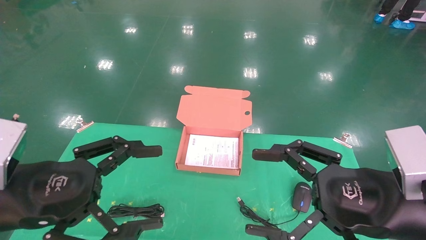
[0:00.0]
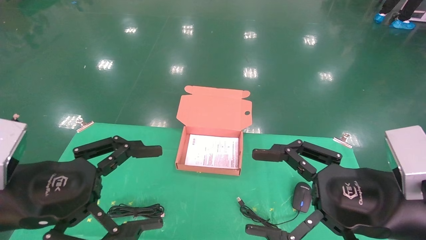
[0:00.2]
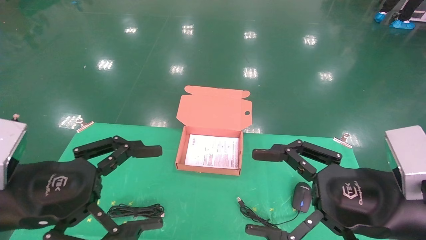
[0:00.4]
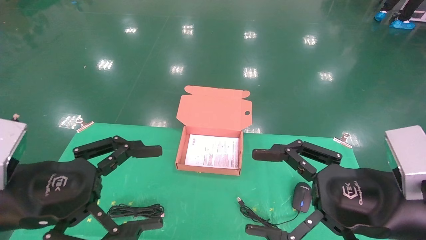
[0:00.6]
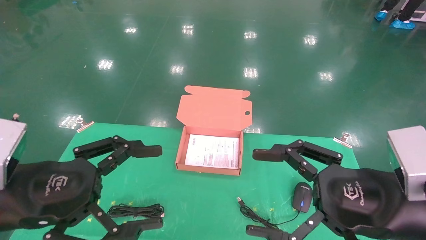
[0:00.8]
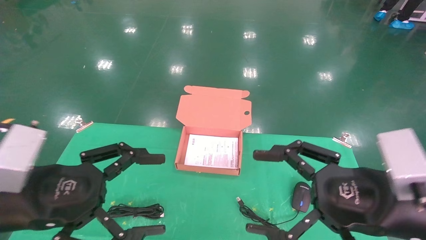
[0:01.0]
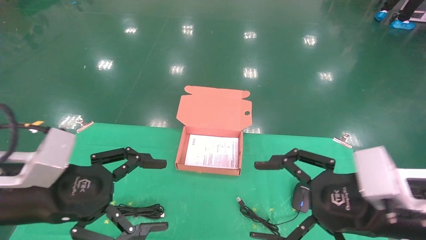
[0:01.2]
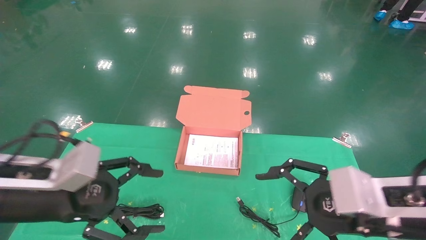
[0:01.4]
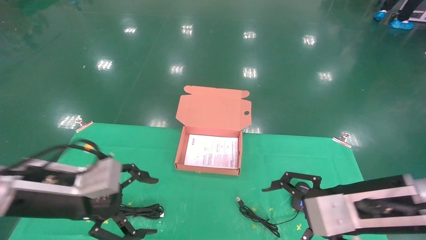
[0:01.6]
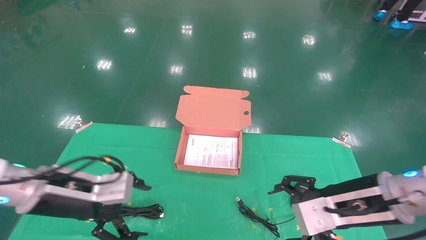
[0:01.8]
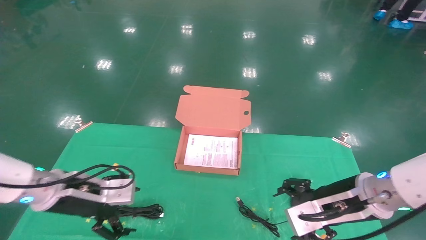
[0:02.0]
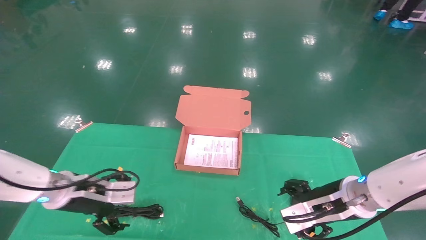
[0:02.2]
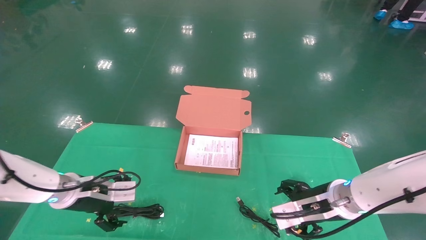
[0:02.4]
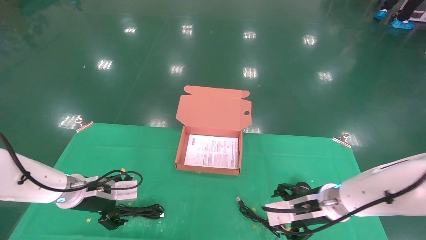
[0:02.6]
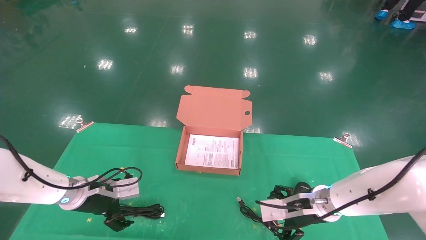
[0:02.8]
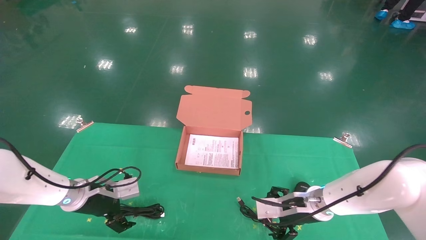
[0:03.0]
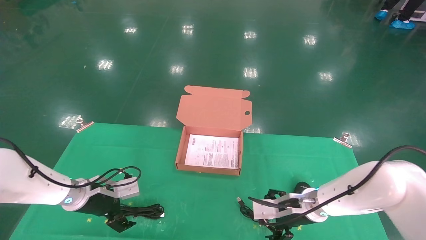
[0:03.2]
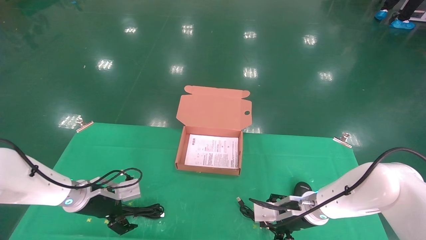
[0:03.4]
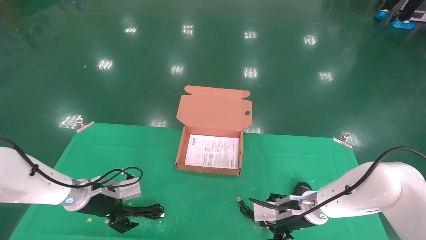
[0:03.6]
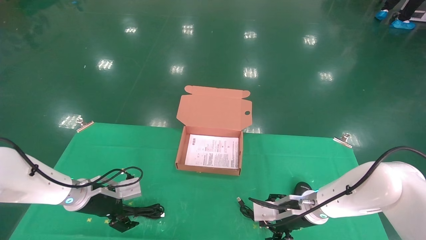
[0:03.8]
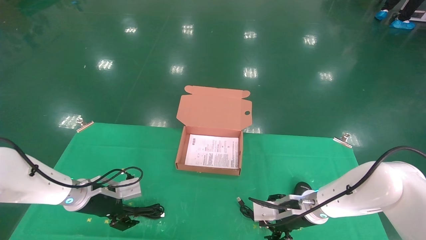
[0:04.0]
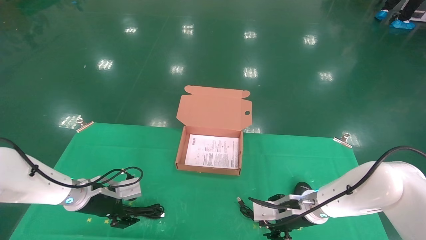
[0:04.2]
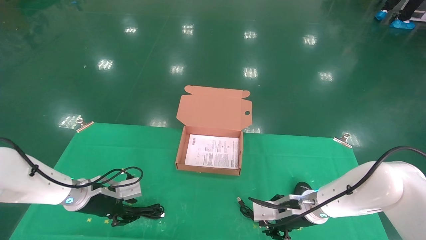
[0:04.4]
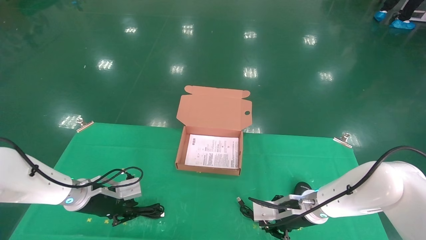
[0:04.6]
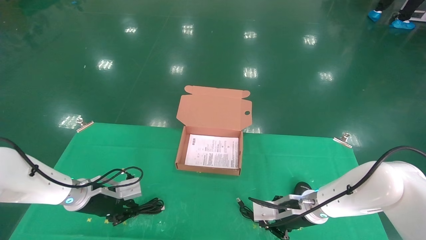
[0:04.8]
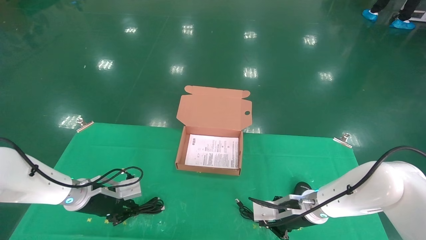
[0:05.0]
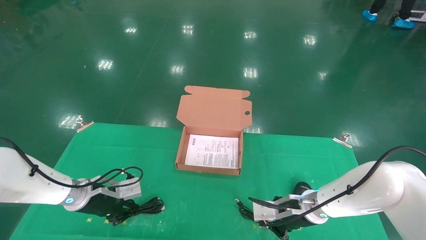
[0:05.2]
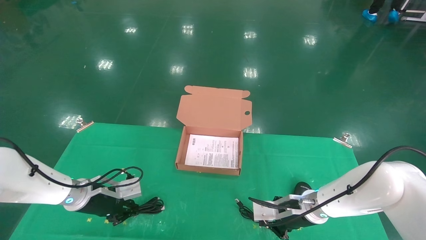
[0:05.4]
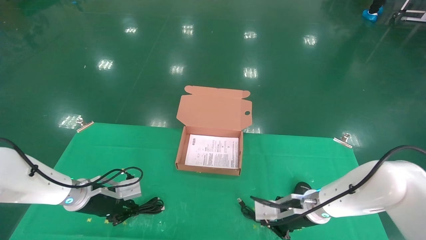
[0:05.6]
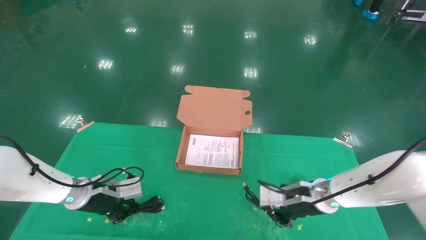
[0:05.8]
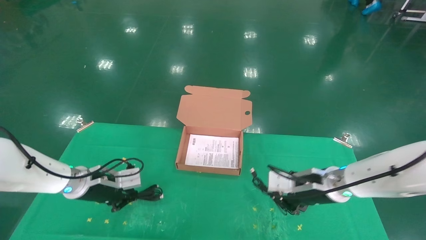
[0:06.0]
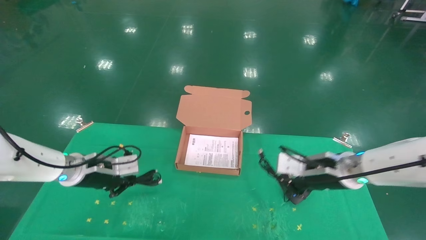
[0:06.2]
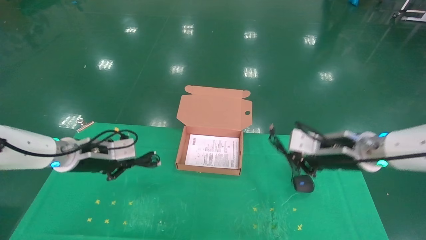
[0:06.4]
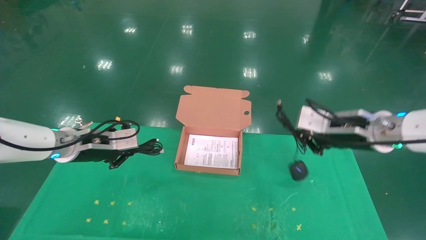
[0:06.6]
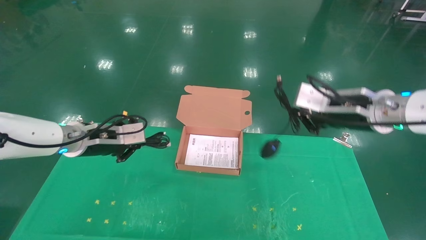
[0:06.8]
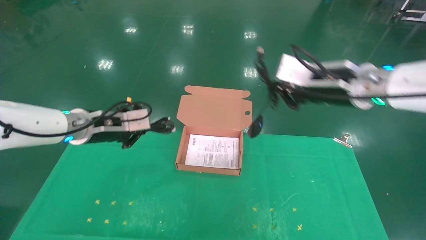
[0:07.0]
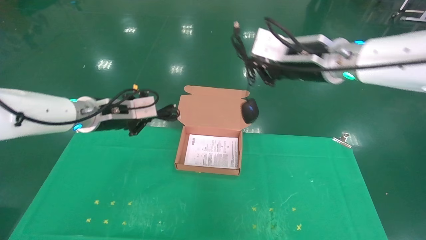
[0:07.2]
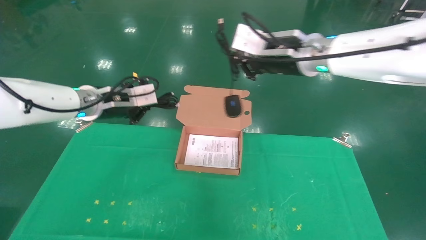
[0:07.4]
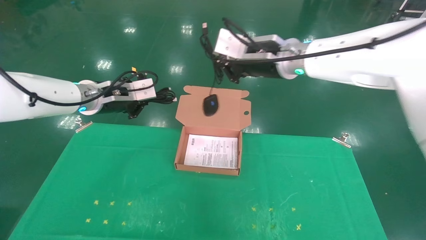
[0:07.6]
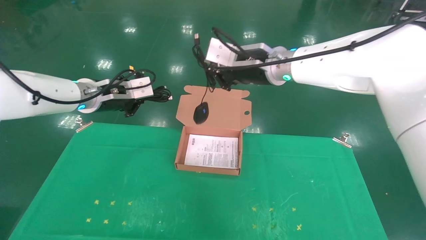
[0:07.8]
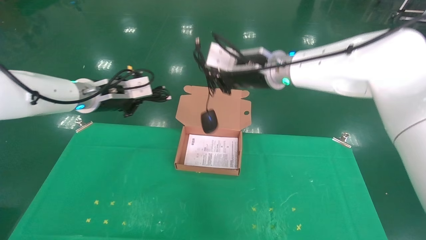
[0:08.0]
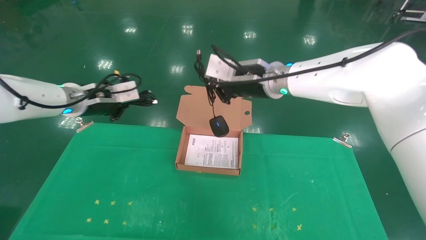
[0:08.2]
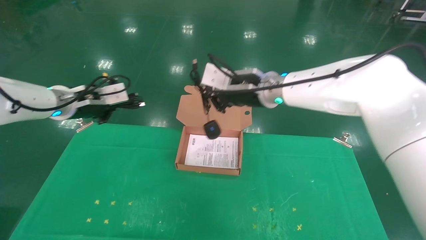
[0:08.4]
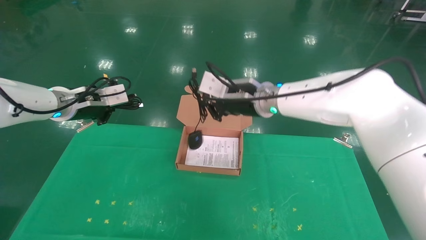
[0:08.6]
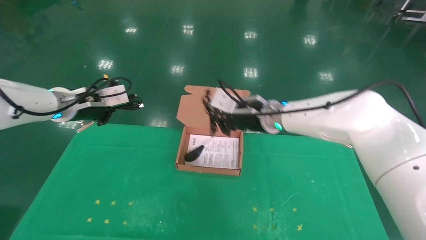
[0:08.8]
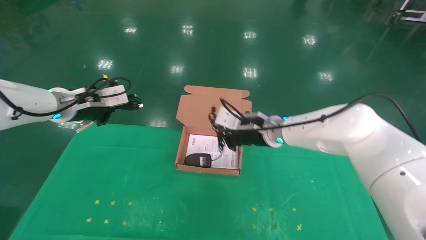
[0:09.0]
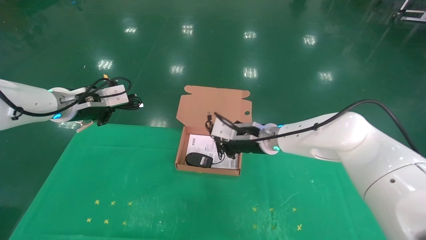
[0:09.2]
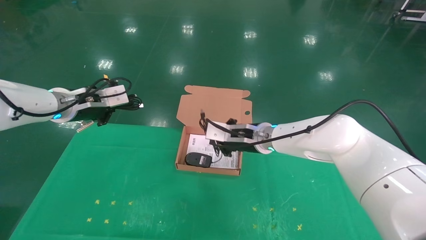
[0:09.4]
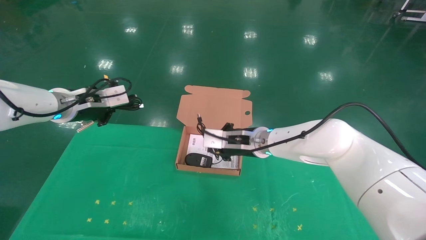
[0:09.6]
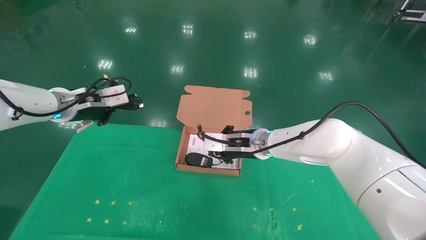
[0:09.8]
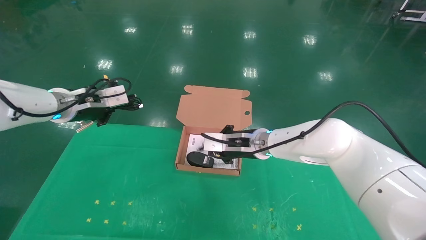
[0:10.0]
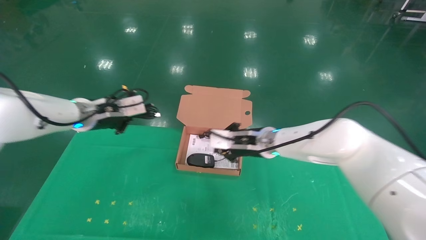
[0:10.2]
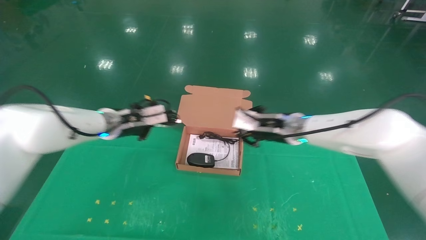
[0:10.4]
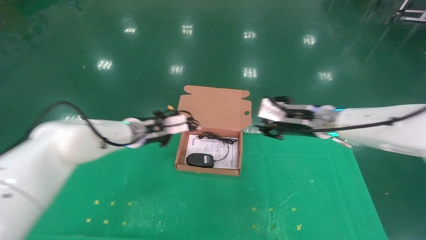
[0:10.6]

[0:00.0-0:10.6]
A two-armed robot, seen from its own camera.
Task of the whole recording: grasp data cable left put into box grasp mouse right put into box.
Step, 0:01.2 to 0:06.4: Grab and pick up both the mouse and power cord from the accessory packaging area at the same time.
0:00.0 to 0:01.6: Both grippers move forward, about 5 cm.
0:01.6 to 0:03.0: The two grippers go roughly 20 cm forward and downward.
0:03.0 to 0:04.6: The right gripper closes its fingers. The left gripper closes its fingers.
0:04.6 to 0:06.0: The right gripper goes roughly 10 cm upward.
0:06.0 to 0:07.6: The right gripper travels upward and to the left by about 25 cm. The left gripper is displaced upward by approximately 20 cm.
0:07.6 to 0:09.0: The left gripper moves to the left, some 5 cm; the right gripper travels downward by about 15 cm.
0:09.0 to 0:10.6: The right gripper shifts some 10 cm to the right, and opens up; the left gripper moves to the right, downward and forward, approximately 15 cm.

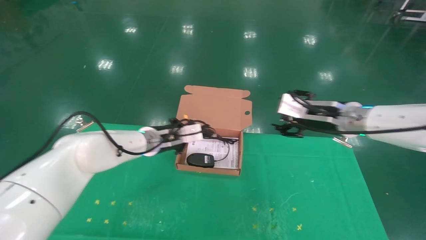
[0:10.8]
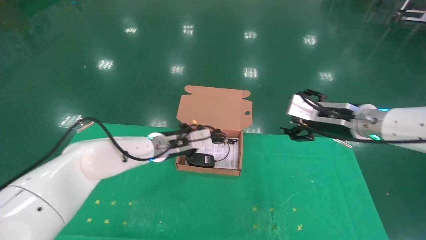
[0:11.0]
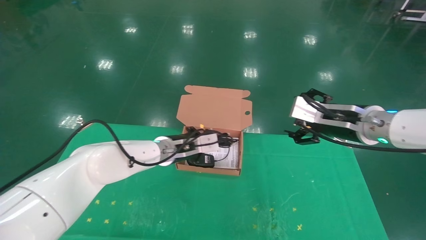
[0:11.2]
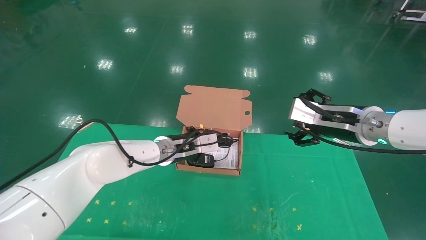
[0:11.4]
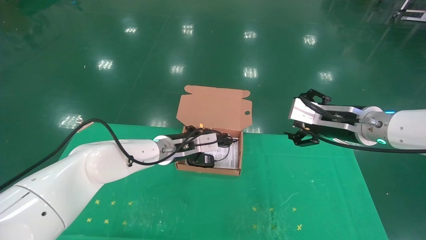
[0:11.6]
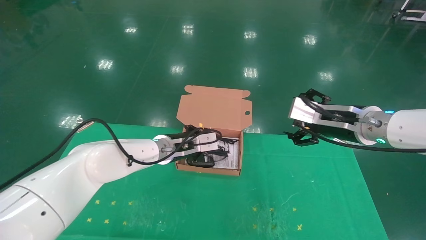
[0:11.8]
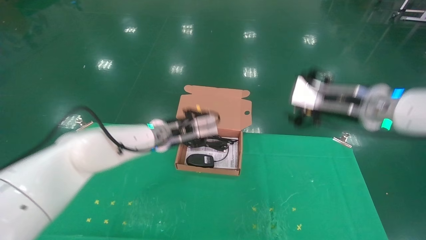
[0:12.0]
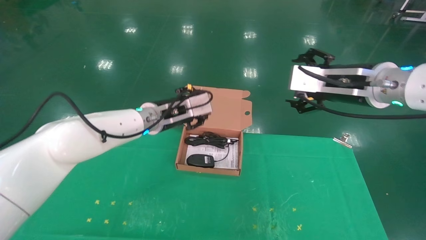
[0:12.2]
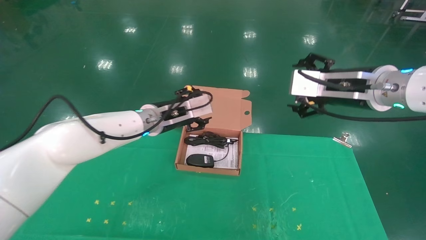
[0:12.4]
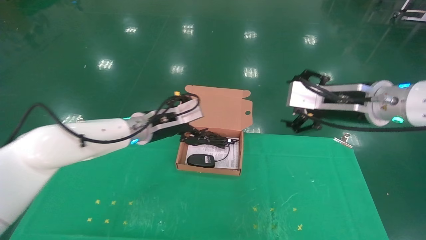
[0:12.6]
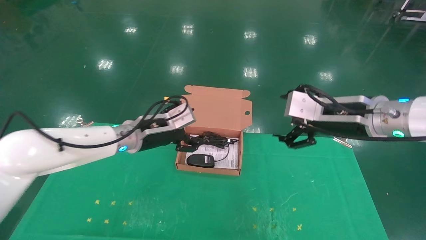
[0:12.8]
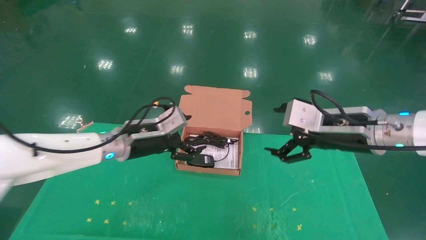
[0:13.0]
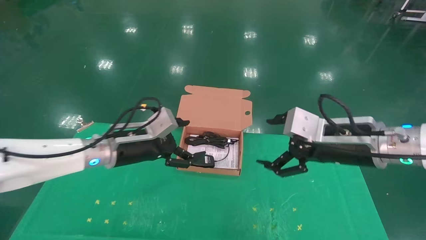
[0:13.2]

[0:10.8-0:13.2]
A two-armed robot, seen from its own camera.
Task of the whole recording: grasp data cable left put into box grasp mouse right put into box.
0:10.8 to 0:12.0: The left gripper ends up some 5 cm from where it was. The right gripper moves upward and backward, some 10 cm, and opens.
0:12.0 to 0:13.2: The left gripper travels backward and to the left by roughly 10 cm, and opens up, while the right gripper travels downward by approximately 5 cm.

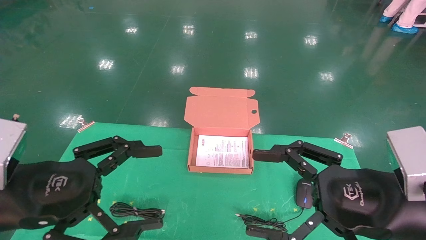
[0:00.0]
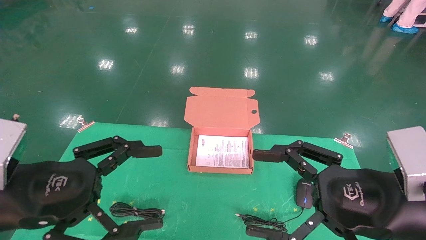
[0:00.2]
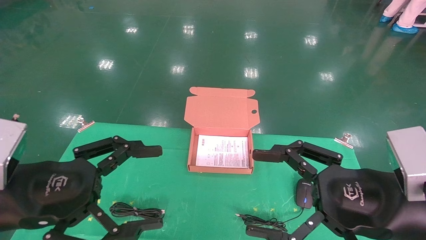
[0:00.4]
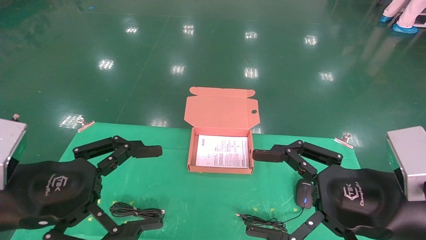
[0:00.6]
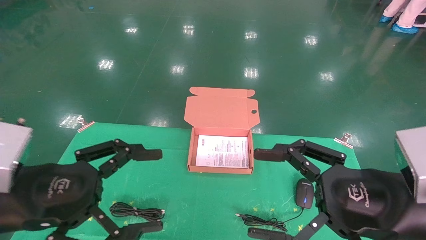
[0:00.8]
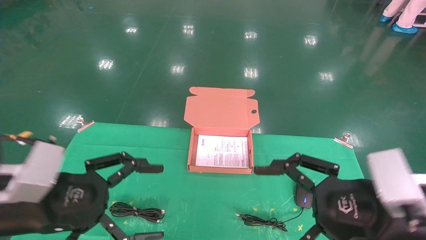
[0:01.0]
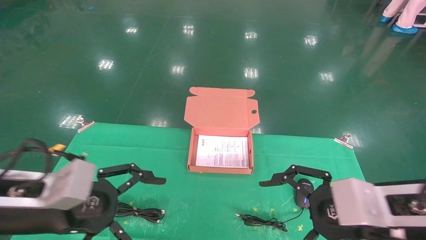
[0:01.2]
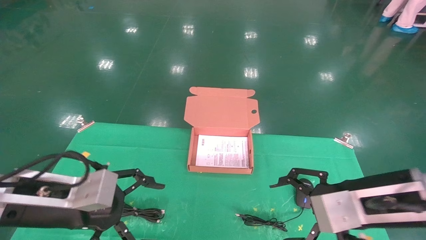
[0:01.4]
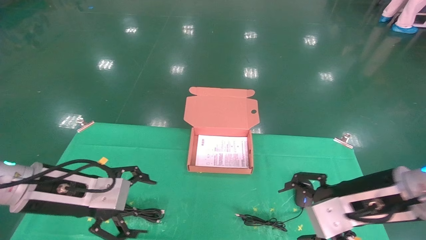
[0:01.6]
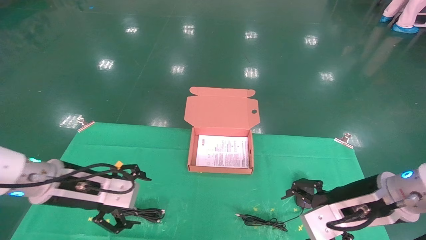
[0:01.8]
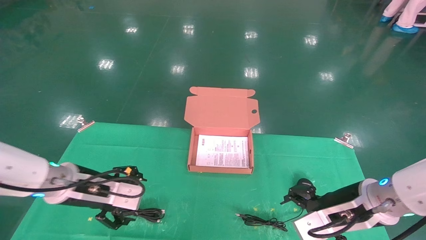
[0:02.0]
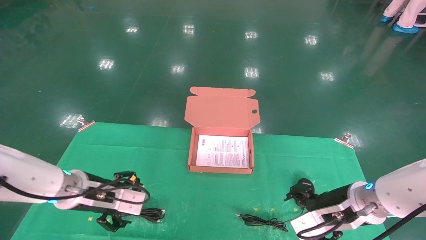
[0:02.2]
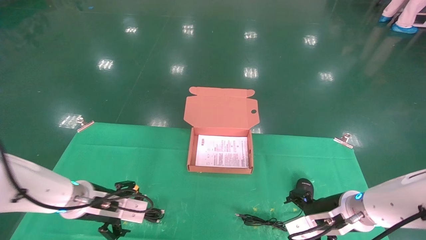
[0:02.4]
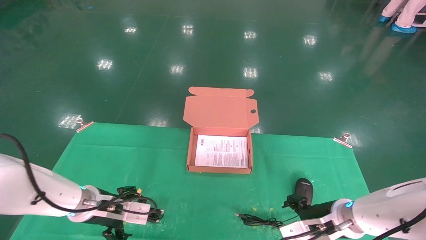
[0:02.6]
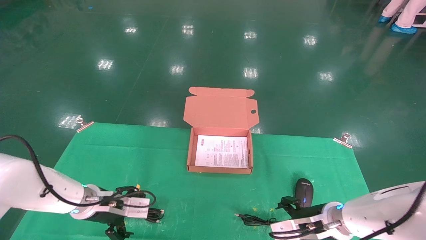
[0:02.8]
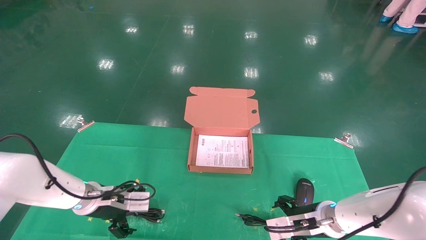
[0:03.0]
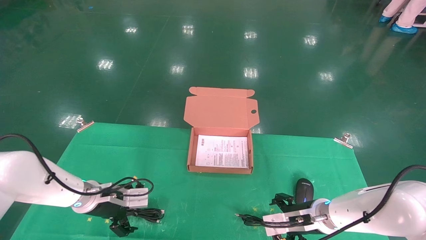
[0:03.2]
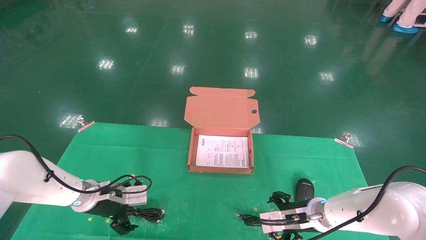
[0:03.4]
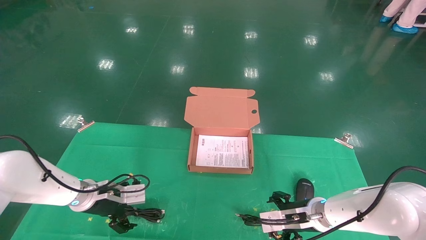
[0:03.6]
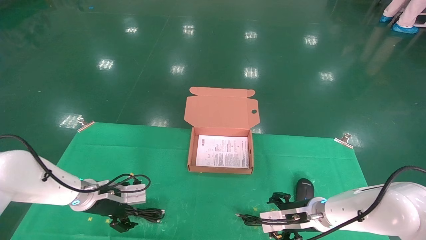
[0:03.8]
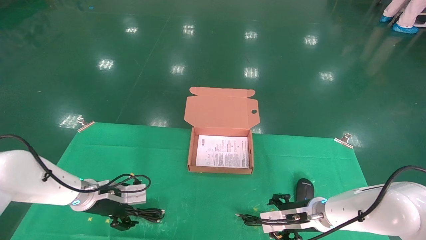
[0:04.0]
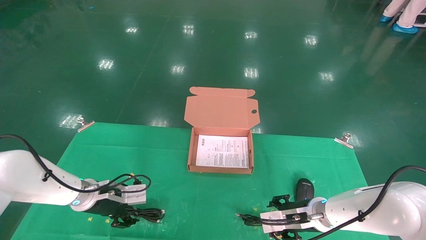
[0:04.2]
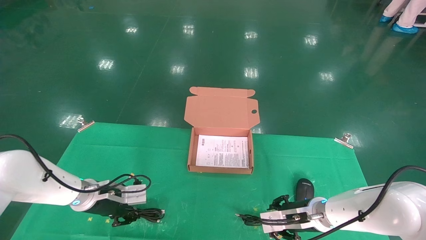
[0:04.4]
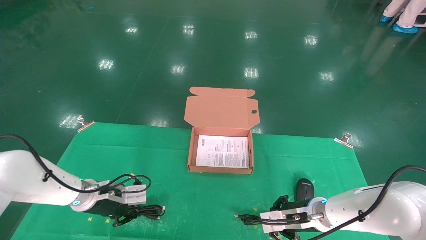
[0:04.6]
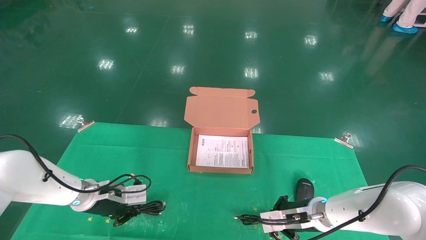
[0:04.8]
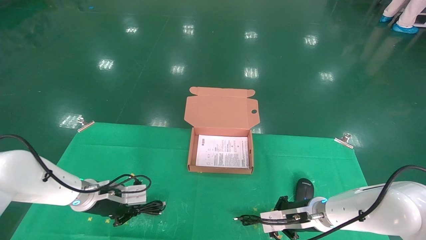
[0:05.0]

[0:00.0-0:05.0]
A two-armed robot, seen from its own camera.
Task of the whole recording: grasp data cable left put into box grasp mouse right put into box.
0:00.0 to 0:01.6: Both grippers travel together forward, roughly 10 cm.
0:01.6 to 0:03.4: The right gripper heads downward and forward, covering approximately 20 cm; the left gripper is displaced forward and downward by about 20 cm.
0:03.4 to 0:05.0: The right gripper closes its fingers, while the left gripper closes its fingers.
